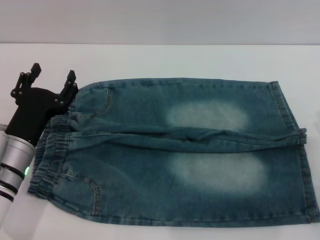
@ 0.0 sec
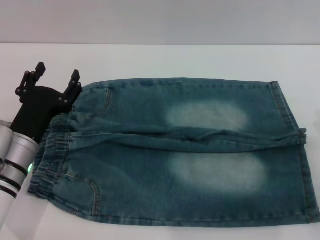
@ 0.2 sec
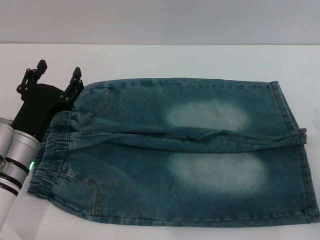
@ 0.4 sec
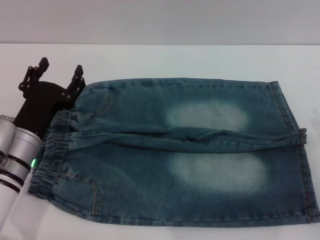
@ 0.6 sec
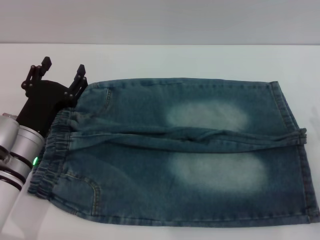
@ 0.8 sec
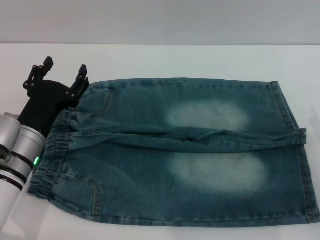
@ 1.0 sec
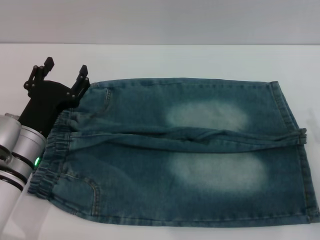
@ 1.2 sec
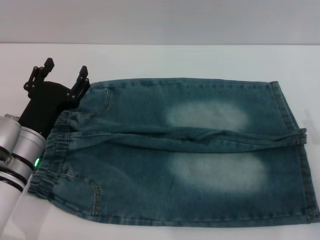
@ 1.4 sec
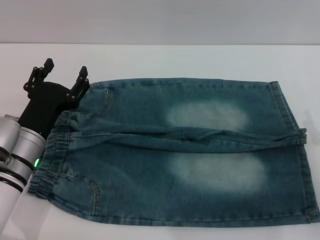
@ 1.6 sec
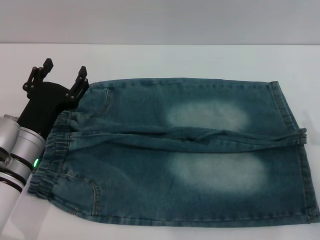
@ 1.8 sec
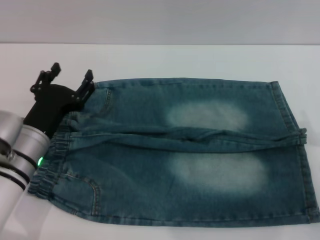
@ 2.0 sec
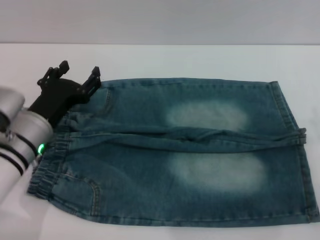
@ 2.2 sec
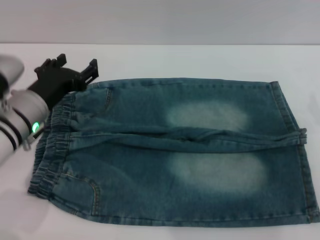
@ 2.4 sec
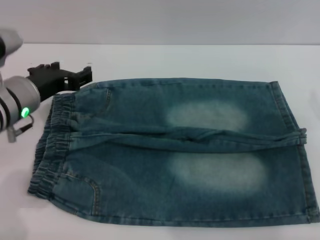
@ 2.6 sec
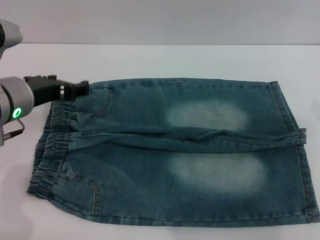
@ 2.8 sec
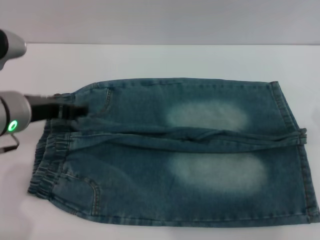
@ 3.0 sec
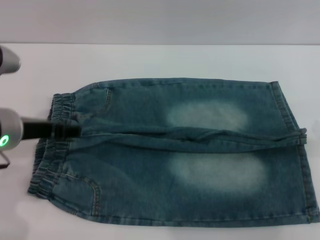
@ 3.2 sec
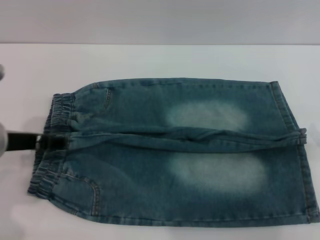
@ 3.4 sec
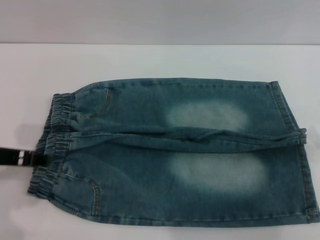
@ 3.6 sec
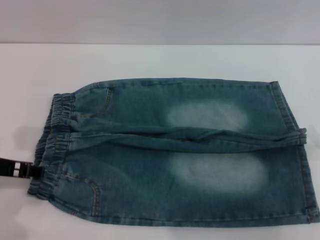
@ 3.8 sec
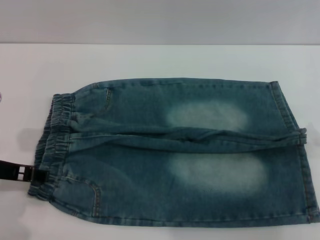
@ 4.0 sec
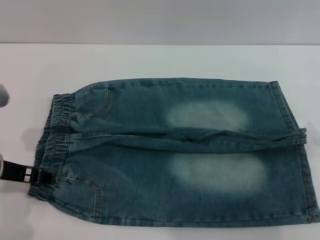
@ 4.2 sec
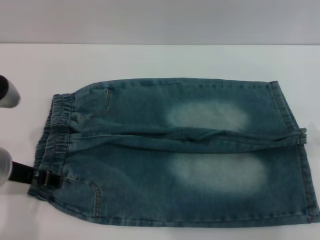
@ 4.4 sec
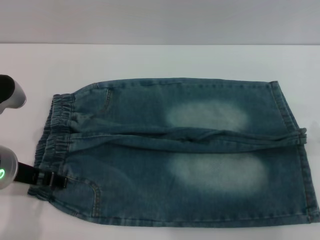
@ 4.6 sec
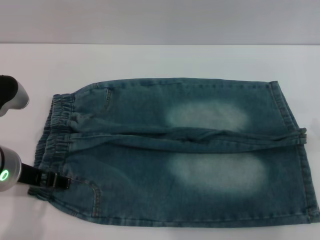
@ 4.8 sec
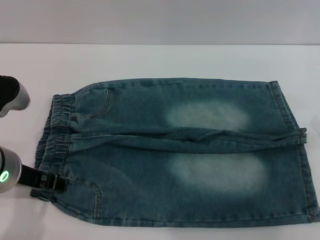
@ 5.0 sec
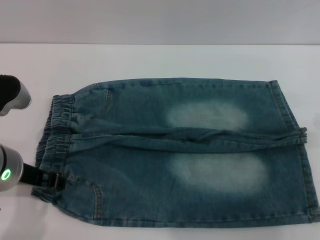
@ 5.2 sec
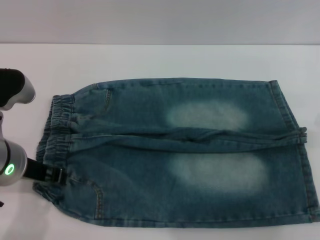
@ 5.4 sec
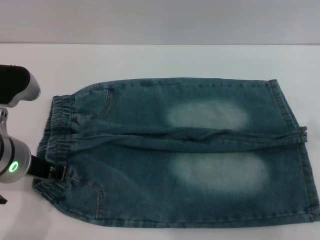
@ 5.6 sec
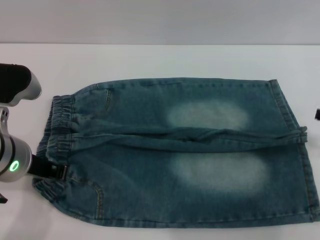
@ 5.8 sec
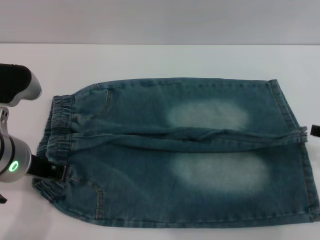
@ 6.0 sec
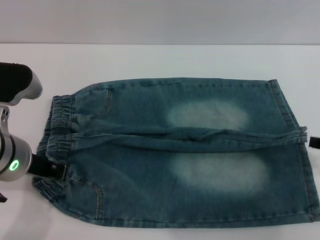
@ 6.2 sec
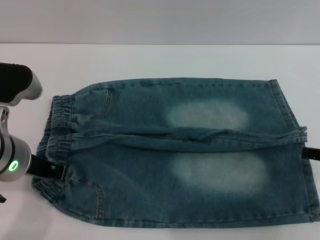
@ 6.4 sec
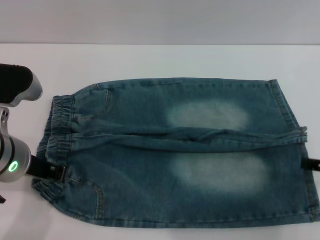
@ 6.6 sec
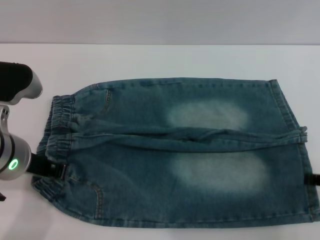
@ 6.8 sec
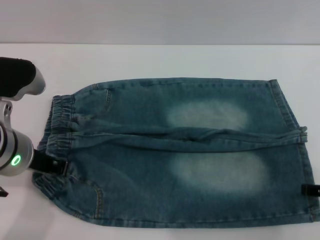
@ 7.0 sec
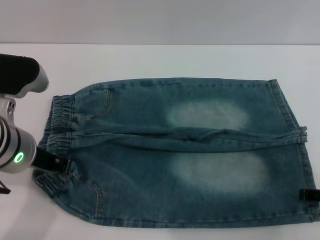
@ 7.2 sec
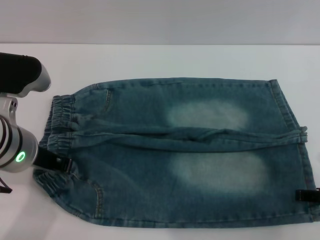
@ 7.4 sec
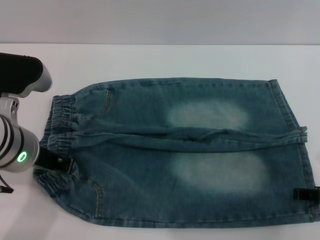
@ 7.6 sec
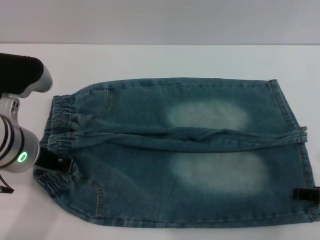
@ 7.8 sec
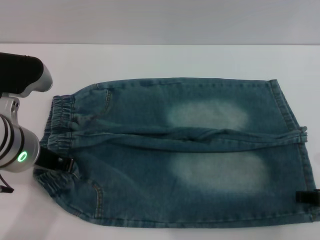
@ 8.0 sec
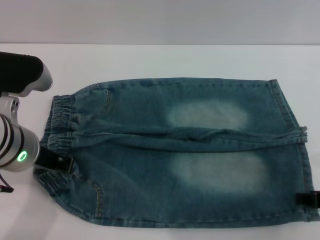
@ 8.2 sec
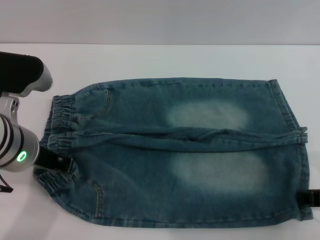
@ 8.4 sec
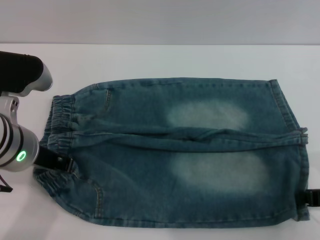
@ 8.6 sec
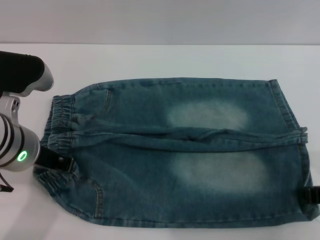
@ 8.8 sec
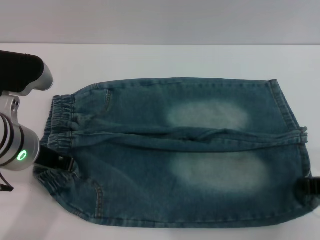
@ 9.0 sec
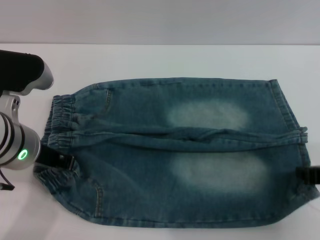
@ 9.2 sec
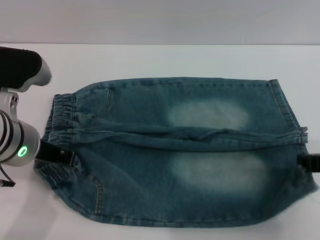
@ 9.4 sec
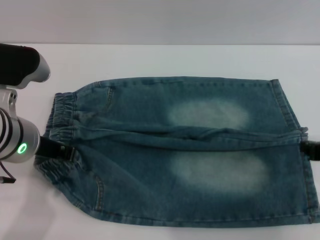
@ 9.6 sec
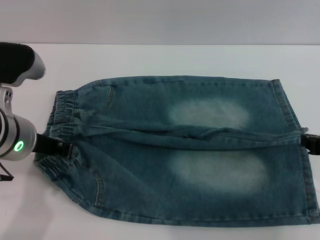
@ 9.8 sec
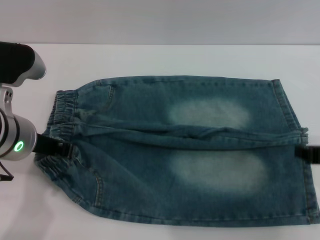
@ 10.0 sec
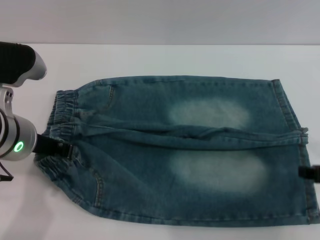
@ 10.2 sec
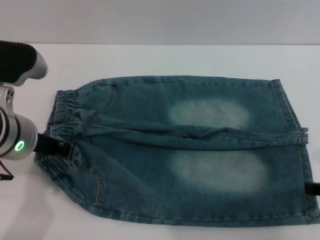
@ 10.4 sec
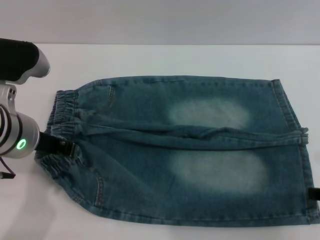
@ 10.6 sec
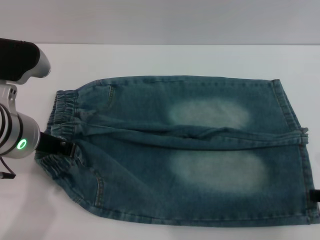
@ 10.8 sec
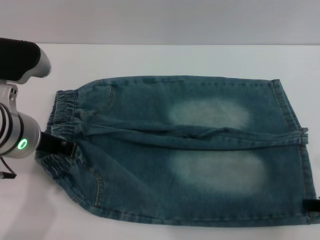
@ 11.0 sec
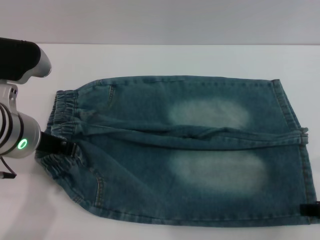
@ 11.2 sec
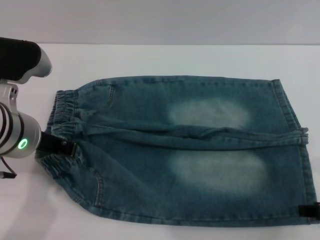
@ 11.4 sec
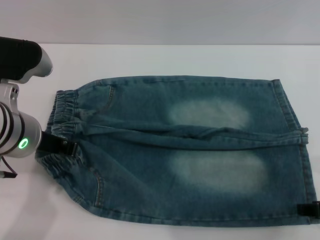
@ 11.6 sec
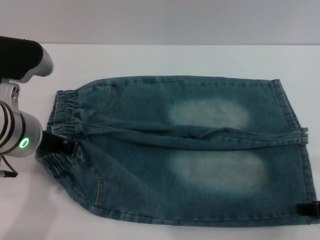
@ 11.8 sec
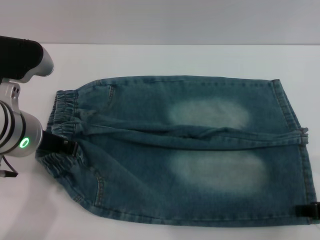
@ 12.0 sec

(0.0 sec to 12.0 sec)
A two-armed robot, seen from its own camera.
0.0 sec - 1.6 sec: The grippers move only a little.
1.6 sec - 3.0 sec: The left gripper shifts some 10 cm upward.
4.4 sec - 6.0 sec: The left gripper closes up.
6.0 sec - 7.6 sec: The right gripper moves about 5 cm.
7.6 sec - 9.0 sec: The right gripper closes.
9.0 sec - 10.4 sec: The grippers stay close to where they were, moving slightly.
10.4 sec - 12.0 sec: The right gripper opens its fingers.

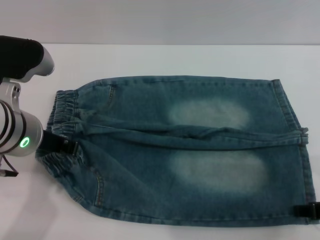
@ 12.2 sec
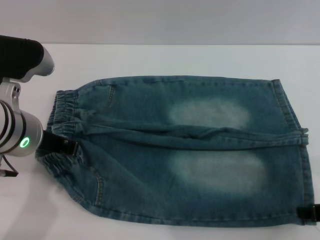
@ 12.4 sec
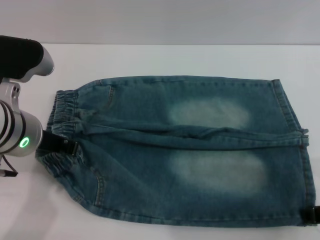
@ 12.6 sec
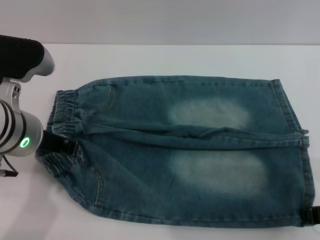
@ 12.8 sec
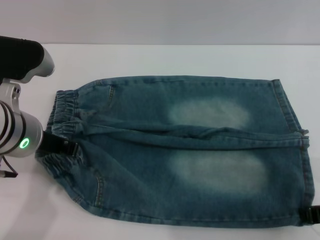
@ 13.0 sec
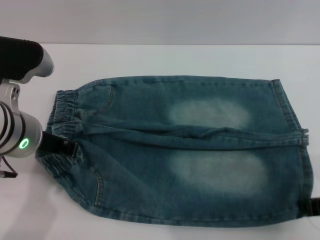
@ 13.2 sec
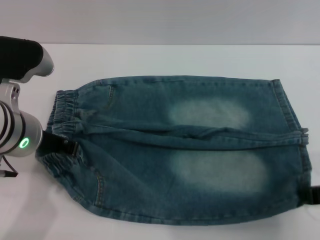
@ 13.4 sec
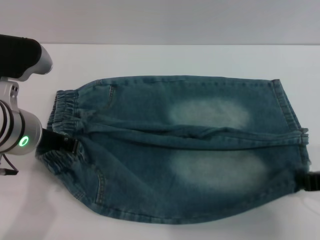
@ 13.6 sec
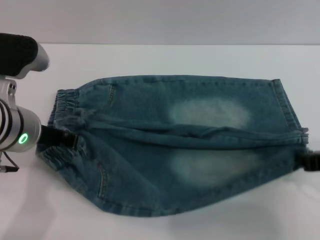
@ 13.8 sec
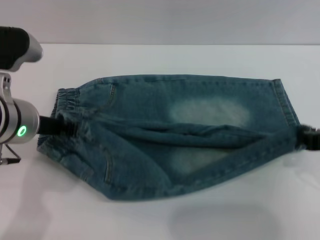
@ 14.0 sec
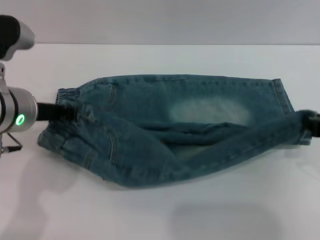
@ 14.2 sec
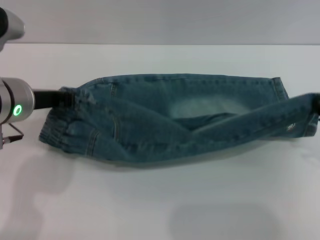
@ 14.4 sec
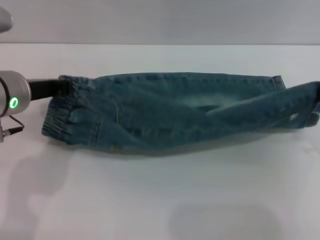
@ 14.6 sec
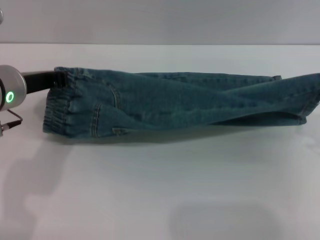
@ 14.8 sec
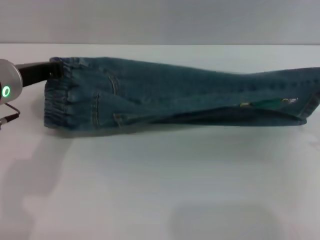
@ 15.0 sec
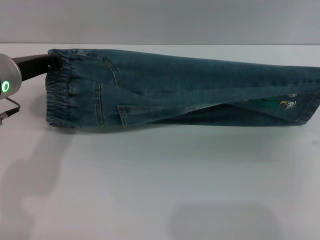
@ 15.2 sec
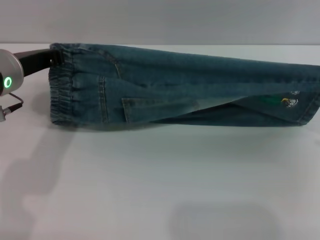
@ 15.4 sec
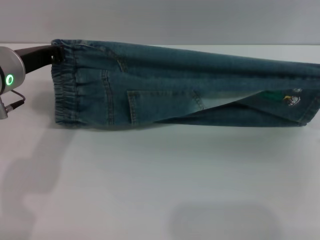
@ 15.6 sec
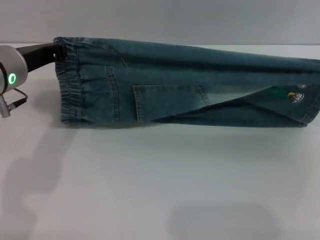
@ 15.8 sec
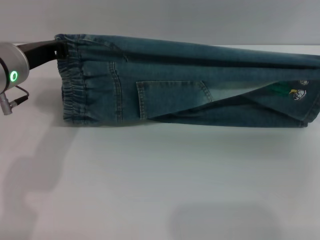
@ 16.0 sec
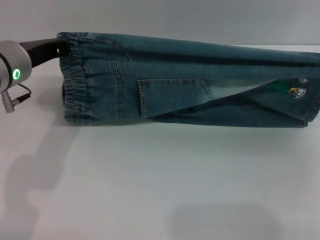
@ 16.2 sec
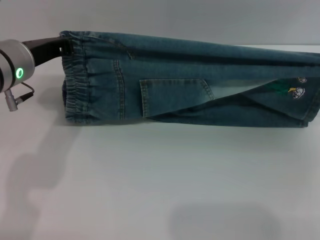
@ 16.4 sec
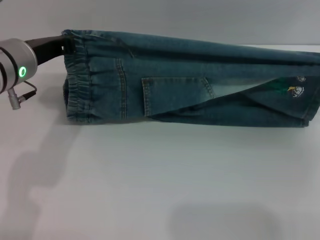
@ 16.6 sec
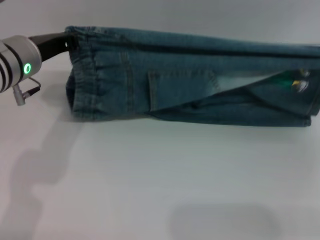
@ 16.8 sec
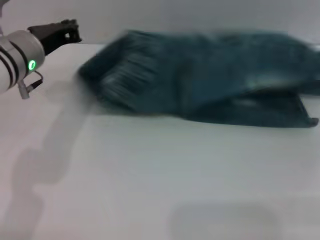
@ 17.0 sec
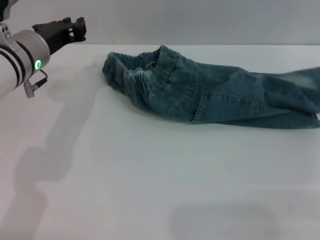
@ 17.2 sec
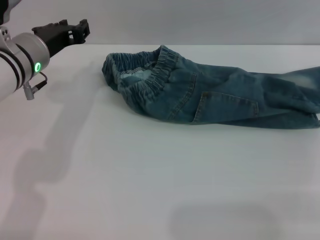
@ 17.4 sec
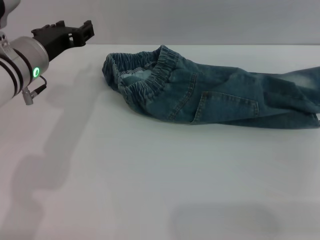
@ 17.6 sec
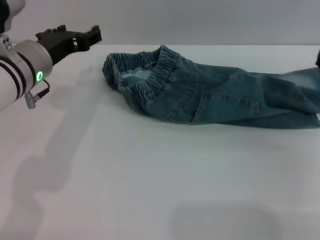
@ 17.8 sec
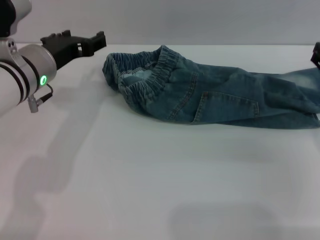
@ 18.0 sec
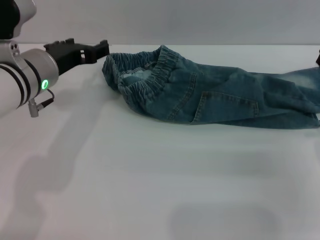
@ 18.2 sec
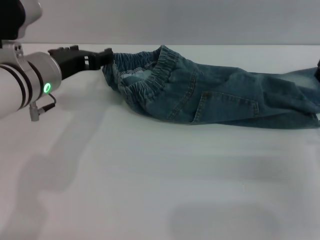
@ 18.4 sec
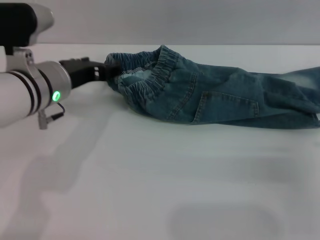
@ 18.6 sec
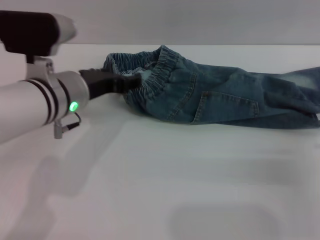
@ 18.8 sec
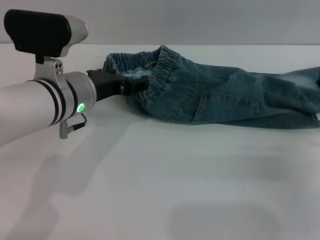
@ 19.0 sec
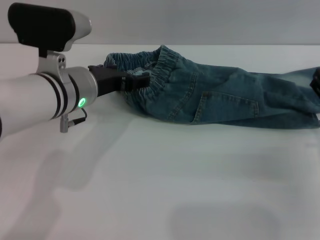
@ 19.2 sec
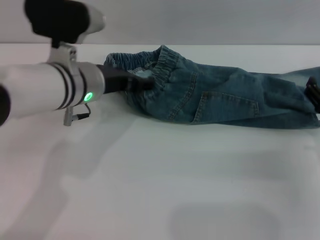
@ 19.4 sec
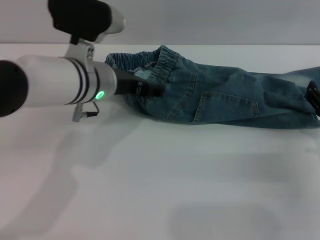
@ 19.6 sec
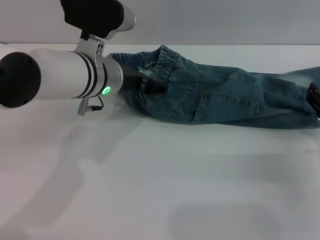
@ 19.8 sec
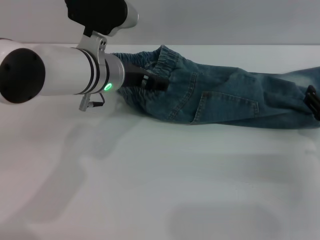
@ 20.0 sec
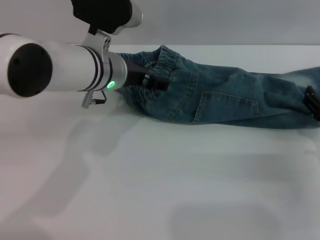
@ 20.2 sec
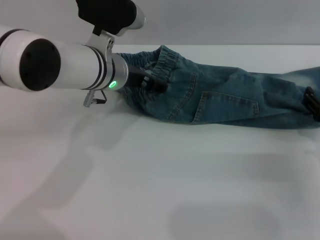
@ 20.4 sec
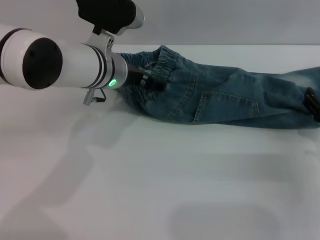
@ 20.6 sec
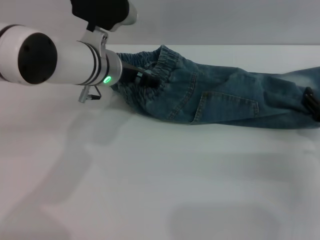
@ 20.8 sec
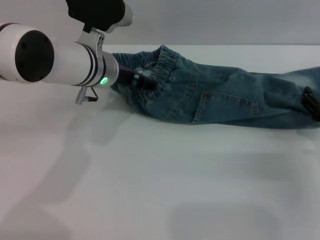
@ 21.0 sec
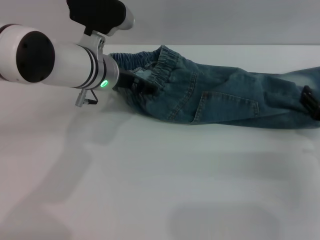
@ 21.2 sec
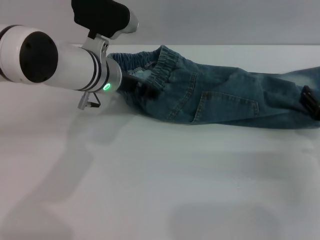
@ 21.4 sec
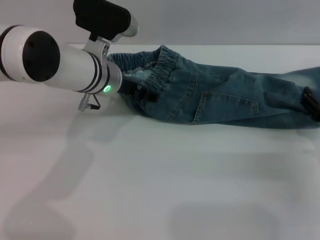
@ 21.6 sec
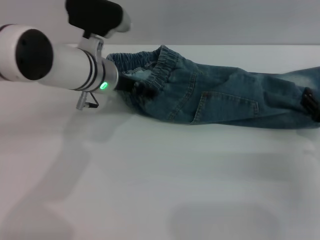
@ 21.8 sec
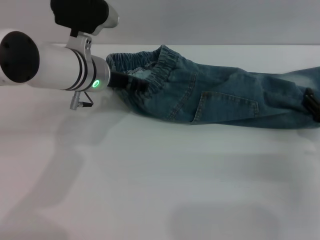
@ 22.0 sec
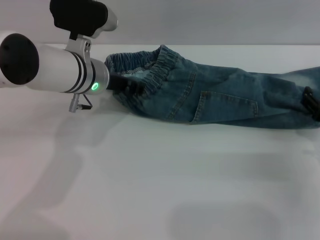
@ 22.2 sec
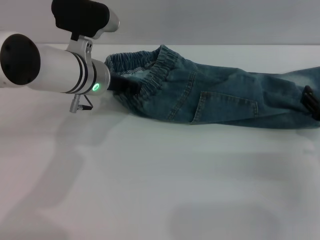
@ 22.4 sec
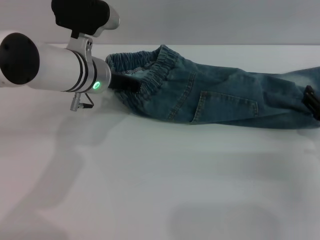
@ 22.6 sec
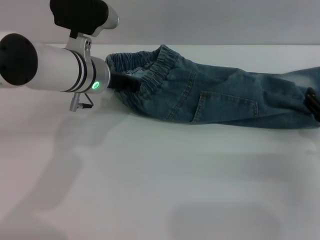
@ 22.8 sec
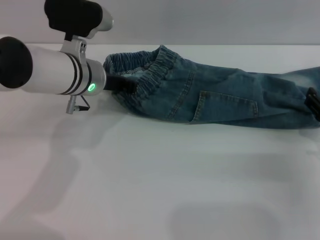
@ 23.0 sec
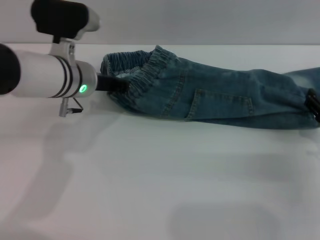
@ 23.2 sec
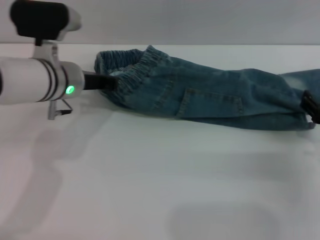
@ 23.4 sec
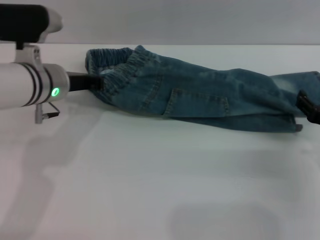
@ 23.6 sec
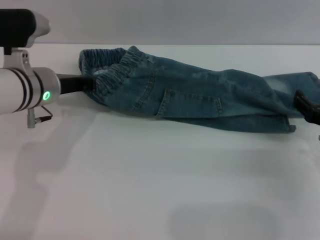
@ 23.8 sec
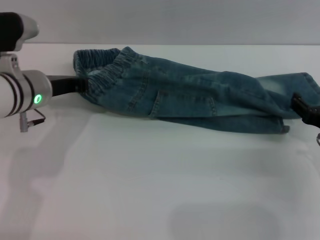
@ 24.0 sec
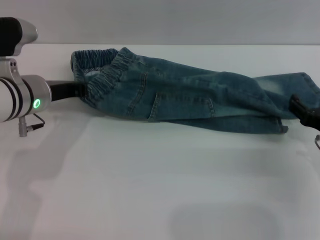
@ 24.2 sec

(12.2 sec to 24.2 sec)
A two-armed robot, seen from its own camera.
Step, 12.2 sec - 17.4 sec: Fold the bottom of the pants upward with both grippers.
12.2 sec - 13.8 sec: The right gripper closes.
13.8 sec - 15.2 sec: The left gripper changes place by some 5 cm. The right gripper ends up some 5 cm from where it was.
15.2 sec - 16.6 sec: The right gripper ends up roughly 5 cm from where it was.
16.6 sec - 18.2 sec: The right gripper ends up about 5 cm from where it was, and opens. The left gripper opens its fingers.
18.2 sec - 19.8 sec: The left gripper moves to the right, approximately 10 cm.
19.8 sec - 21.2 sec: The grippers make only small movements.
21.2 sec - 22.6 sec: The left gripper closes its fingers.
22.6 sec - 24.2 sec: The left gripper is displaced to the left by approximately 10 cm.